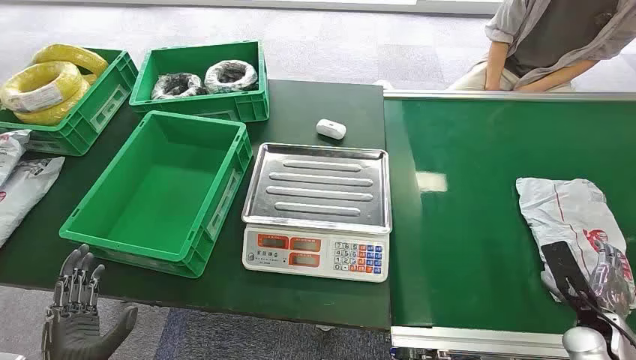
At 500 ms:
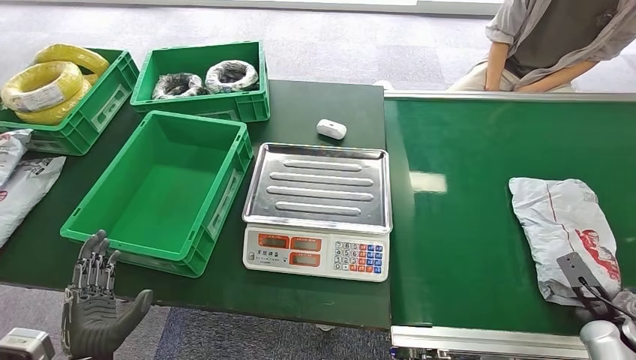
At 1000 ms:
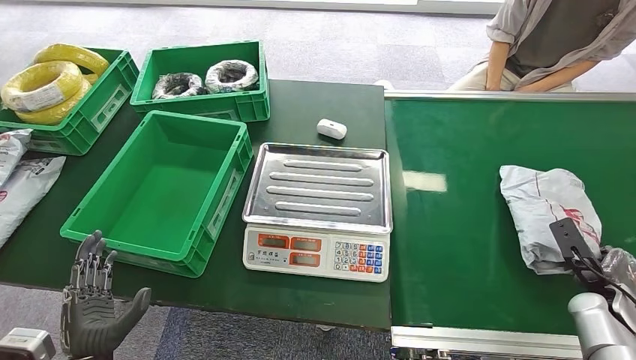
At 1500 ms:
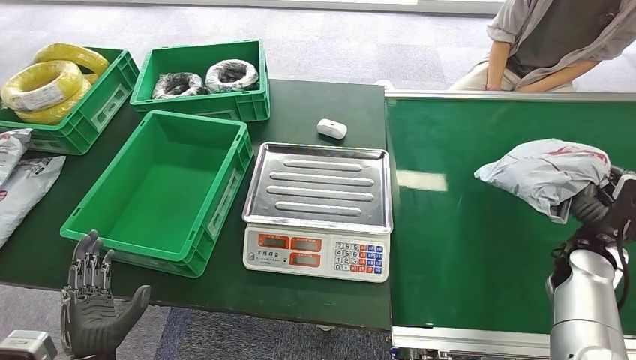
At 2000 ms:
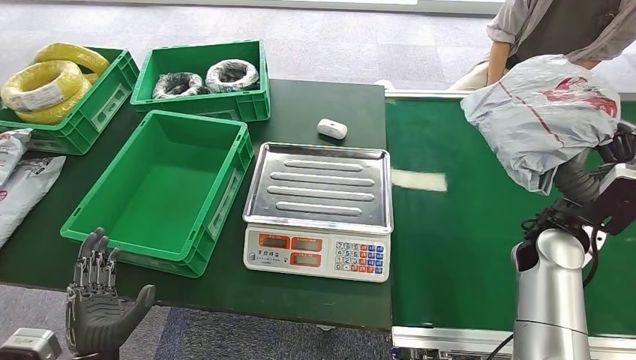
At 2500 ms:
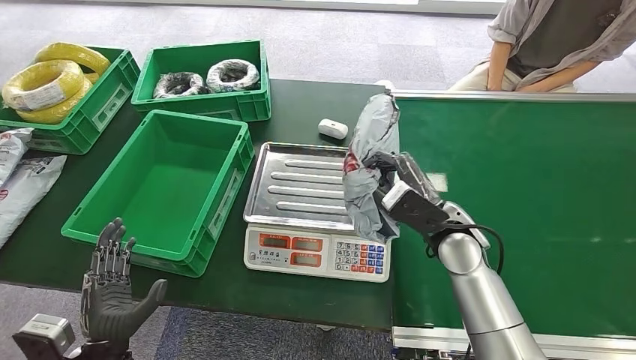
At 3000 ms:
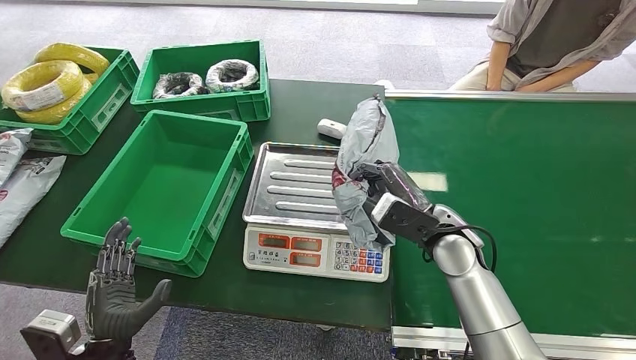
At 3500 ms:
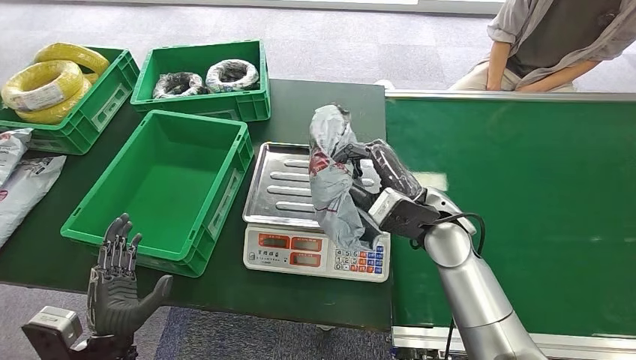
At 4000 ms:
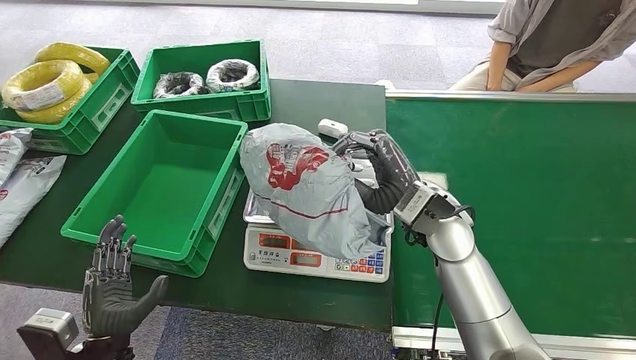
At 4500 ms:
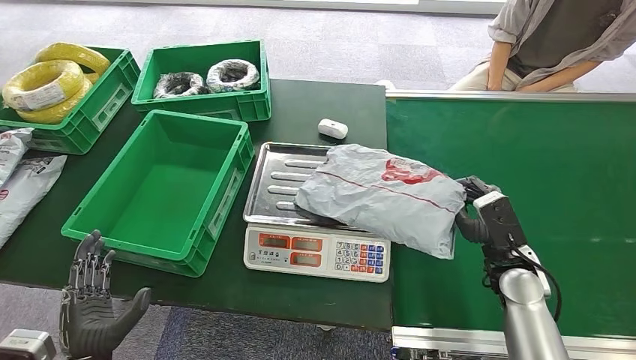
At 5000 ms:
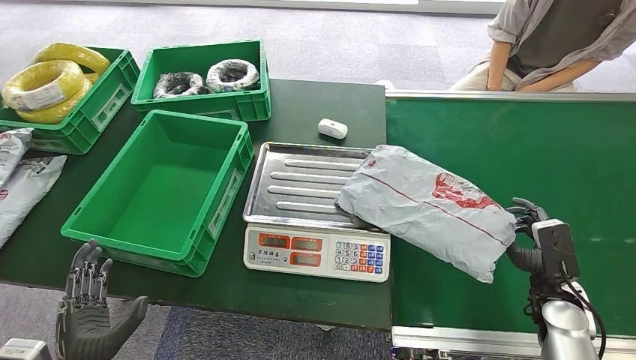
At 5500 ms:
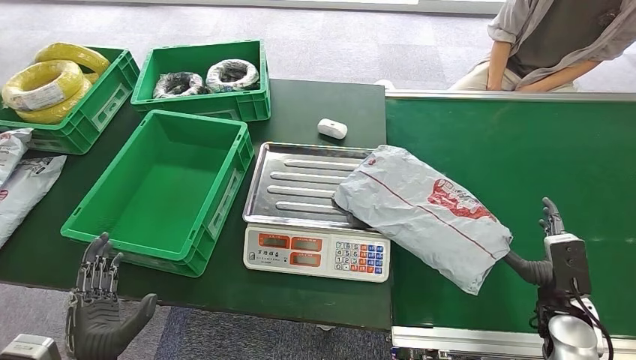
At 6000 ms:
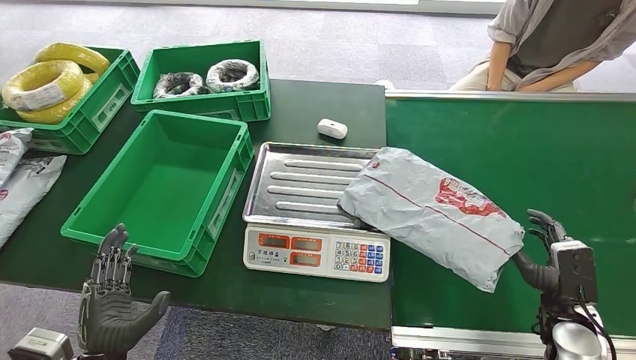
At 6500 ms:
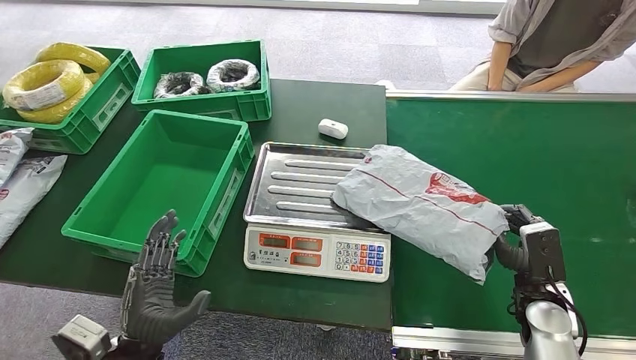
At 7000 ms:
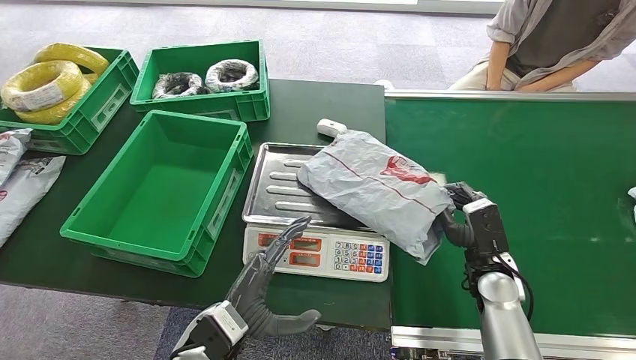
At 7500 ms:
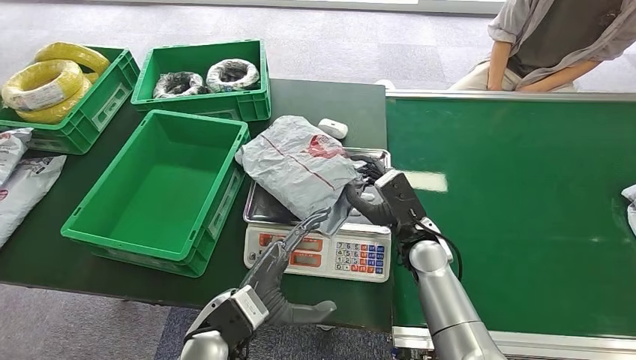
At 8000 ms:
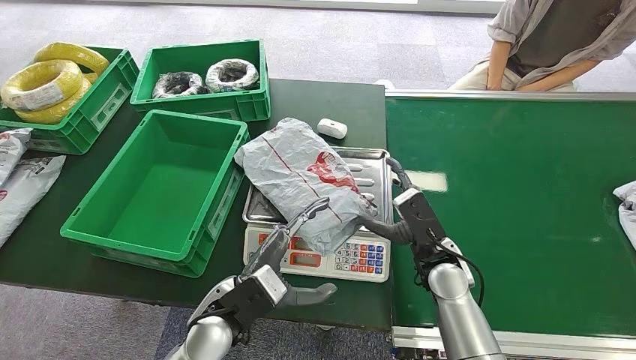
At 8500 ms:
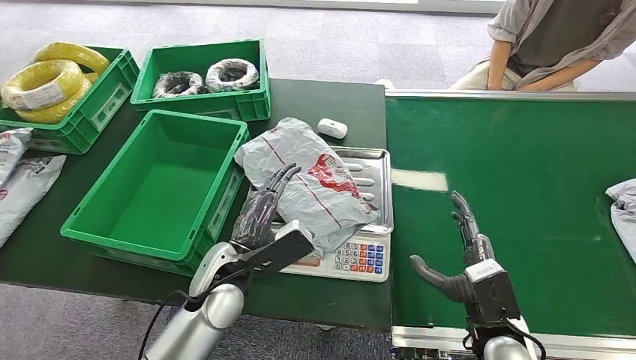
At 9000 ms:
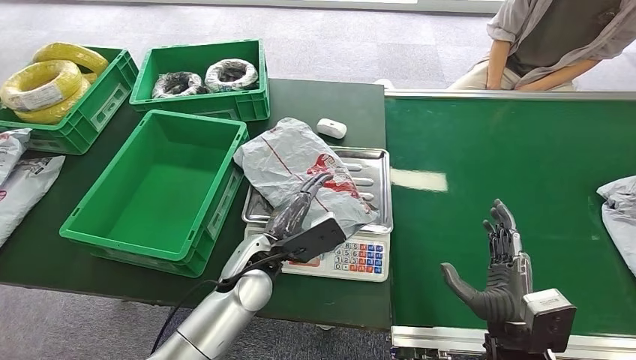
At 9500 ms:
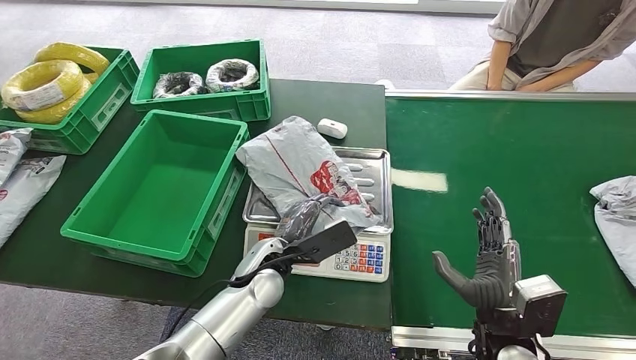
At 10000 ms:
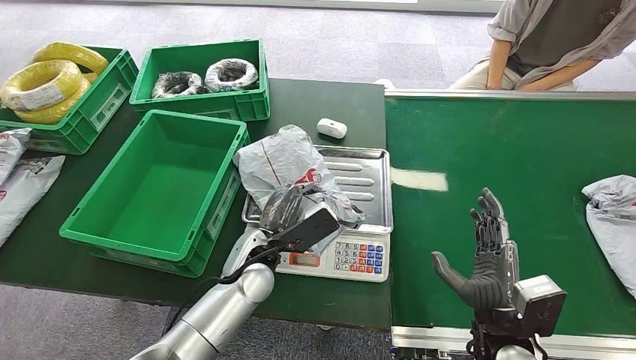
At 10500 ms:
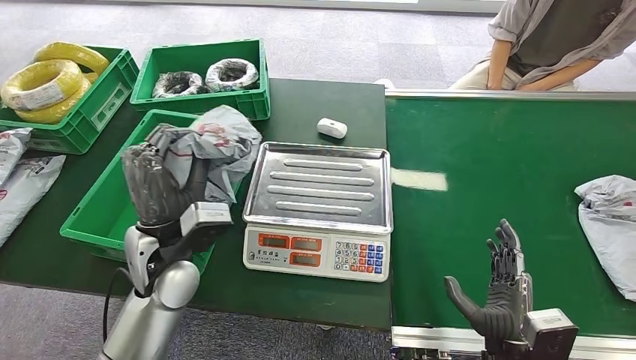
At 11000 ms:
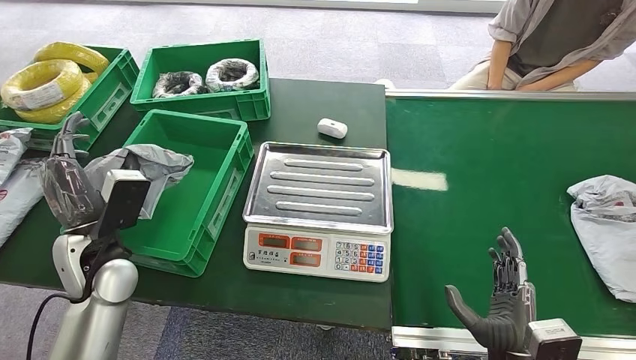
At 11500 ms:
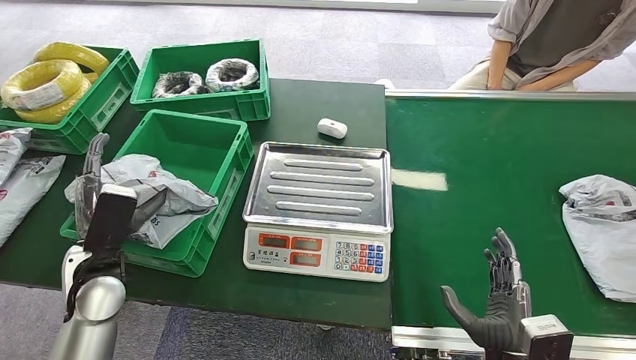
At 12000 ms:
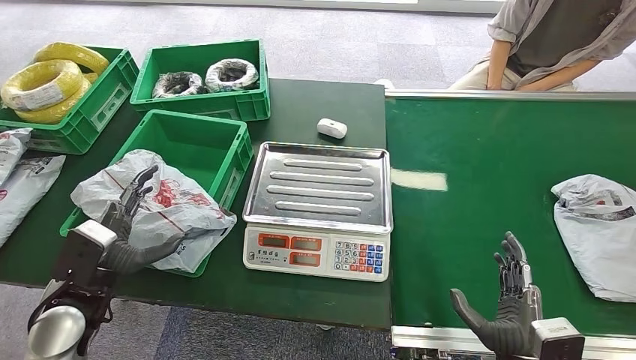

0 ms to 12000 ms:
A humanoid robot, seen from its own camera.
Step, 0 ms to 1000 ms: Pick up the package from the conveyor belt.
Step, 1500 ms to 8000 ms: Place the package onto the inbound machine.
Step, 9000 ms to 10500 ms: Pick up the package from the inbound machine.
Step, 11000 ms to 12000 ms: Place the package into the parcel locker.
4000 ms to 6000 ms: The right hand is displaced to the right, downward and backward by approximately 35 cm.
8000 ms to 10000 ms: The right hand is displaced backward and to the right by approximately 15 cm. The left hand goes some 10 cm forward.

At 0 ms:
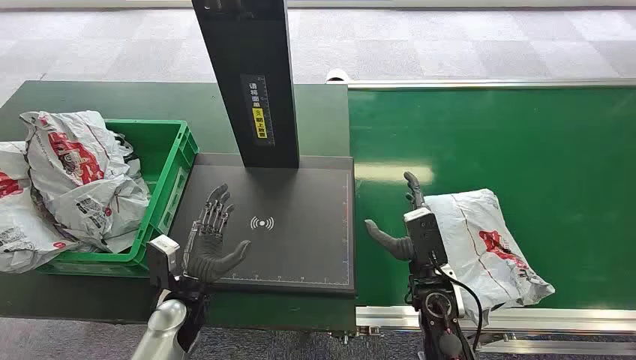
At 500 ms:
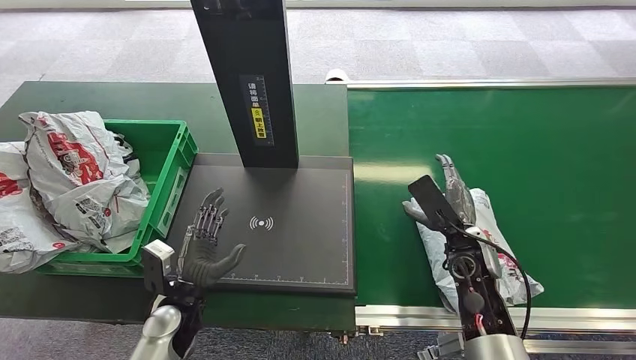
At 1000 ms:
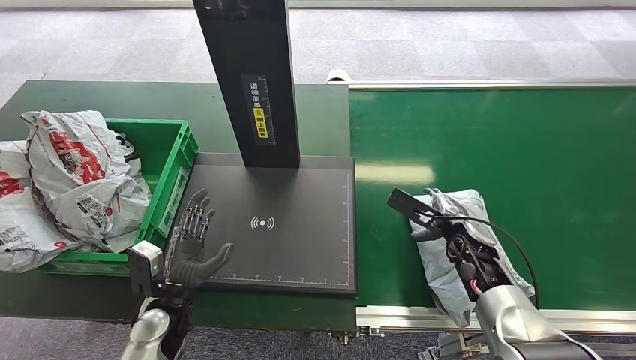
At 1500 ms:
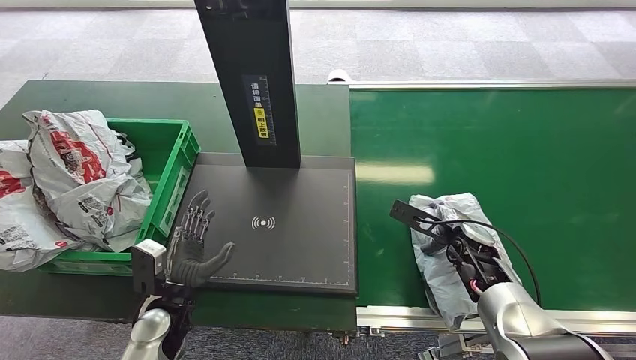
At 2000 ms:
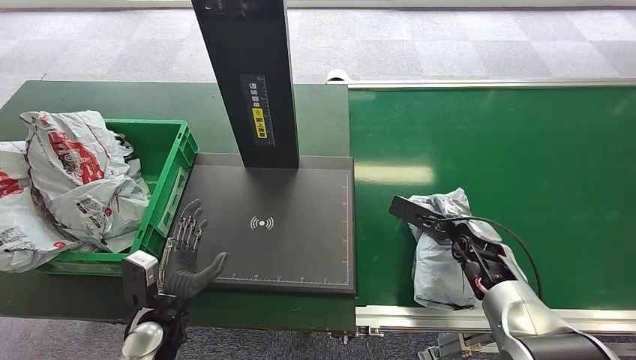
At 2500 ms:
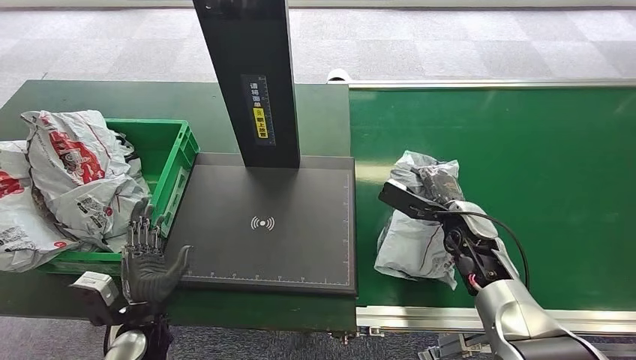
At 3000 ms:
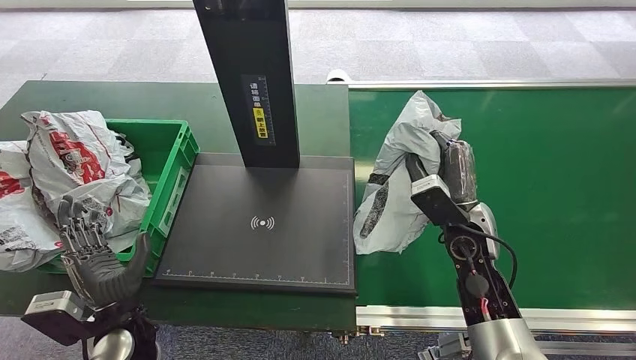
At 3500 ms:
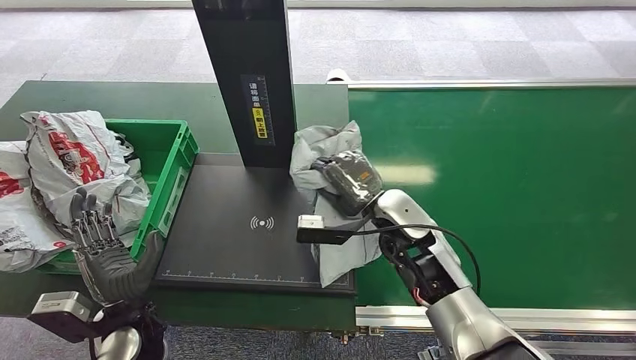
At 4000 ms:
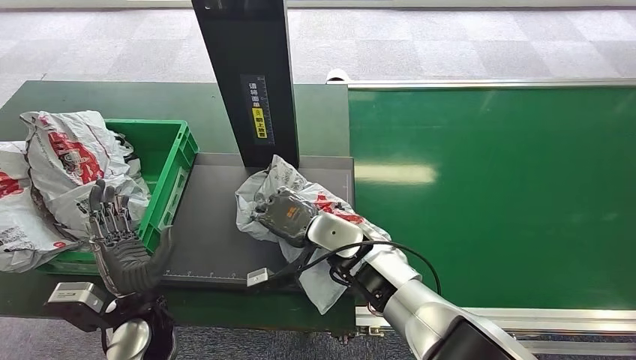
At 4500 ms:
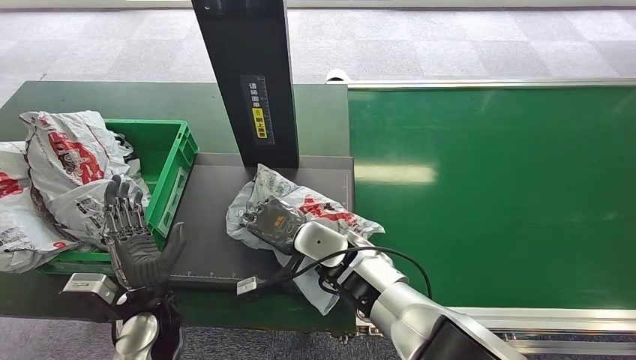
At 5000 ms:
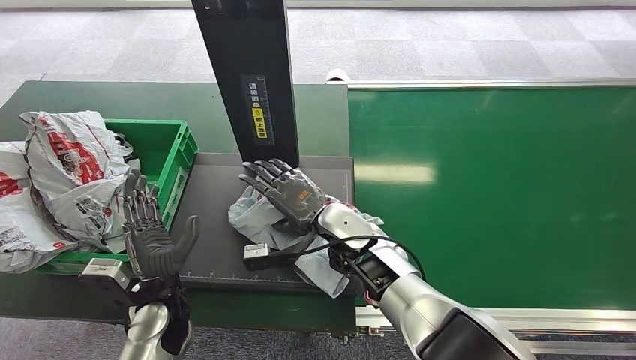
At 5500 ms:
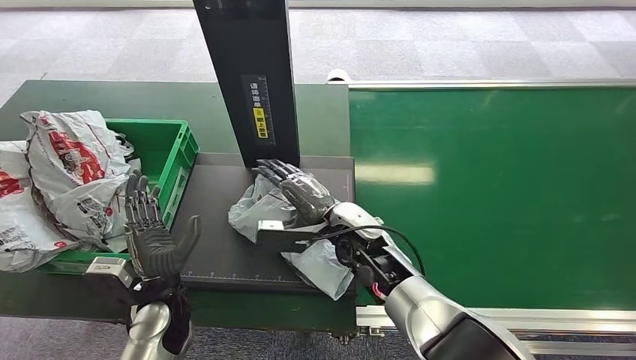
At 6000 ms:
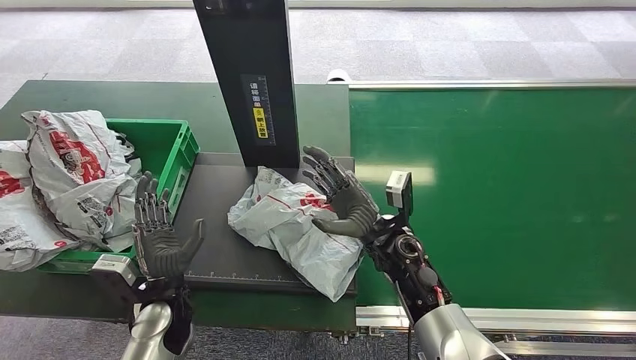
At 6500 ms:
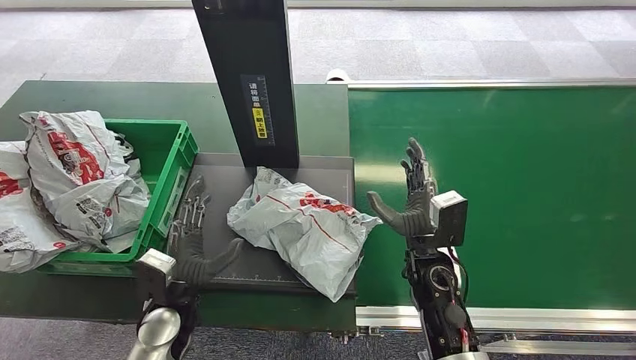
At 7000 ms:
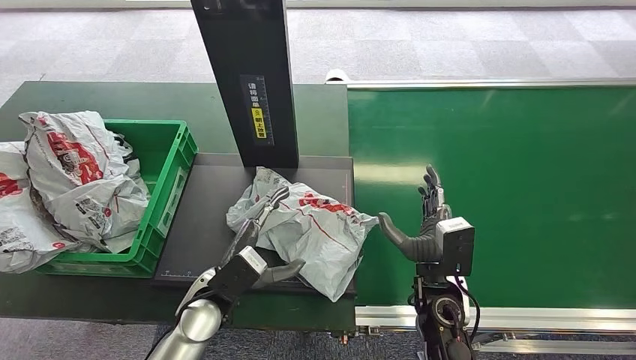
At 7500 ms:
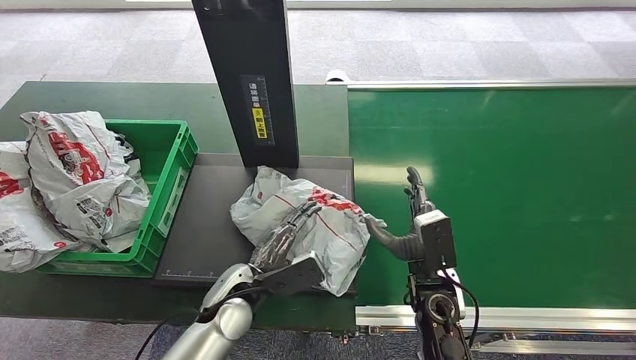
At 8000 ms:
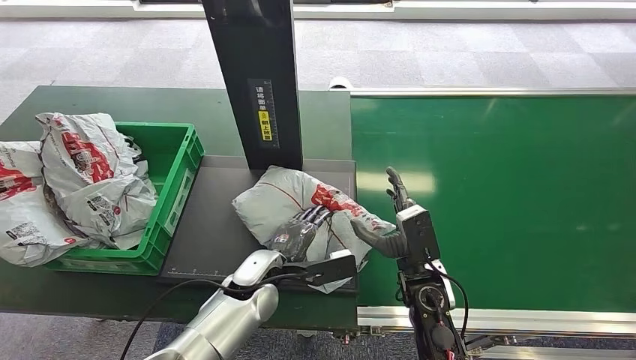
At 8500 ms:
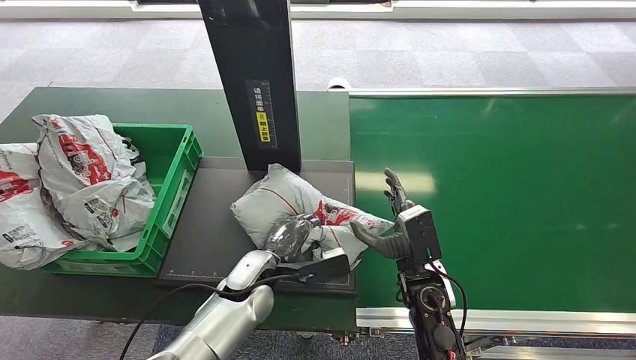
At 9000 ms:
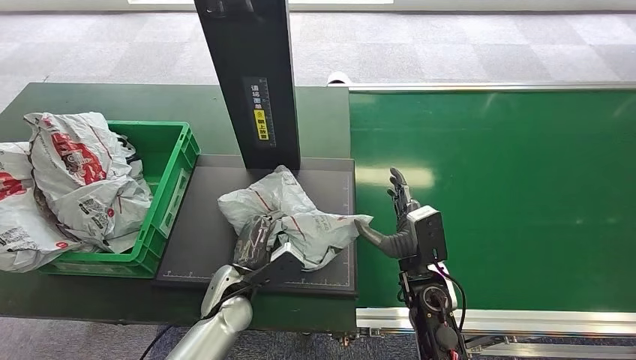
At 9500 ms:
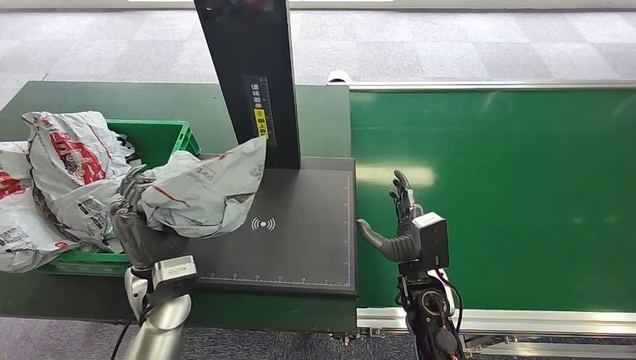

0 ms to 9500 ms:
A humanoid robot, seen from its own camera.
Step, 0 ms to 3000 ms: Pick up the package from the conveyor belt.
Step, 3500 ms to 6000 ms: Place the package onto the inbound machine.
2000 ms to 4000 ms: The right hand is displaced to the left by roughly 25 cm; the left hand heads upward, covering roughly 5 cm.
5500 ms to 7500 ms: The left hand moves to the right, approximately 10 cm, while the right hand goes roughly 15 cm to the right and backward.
